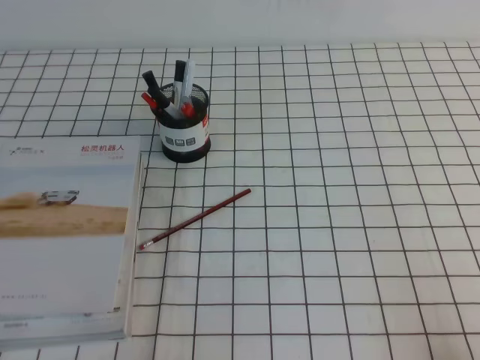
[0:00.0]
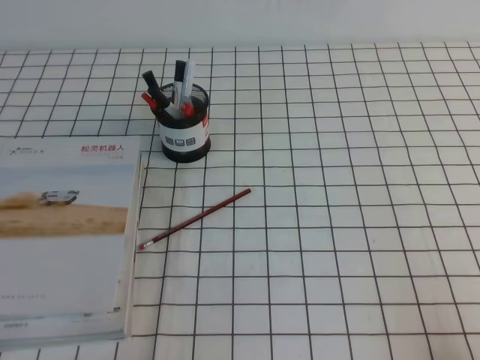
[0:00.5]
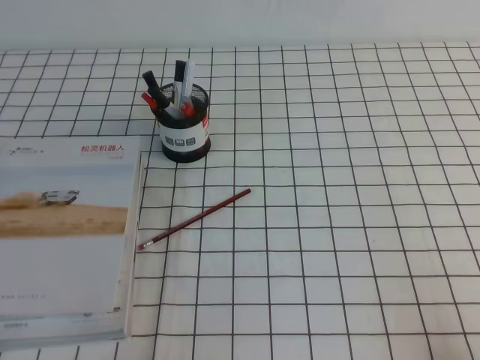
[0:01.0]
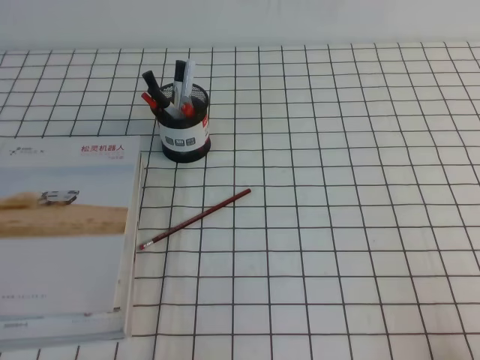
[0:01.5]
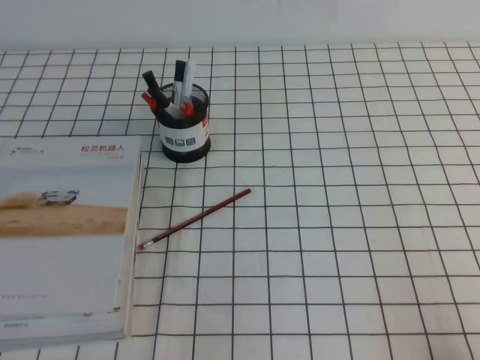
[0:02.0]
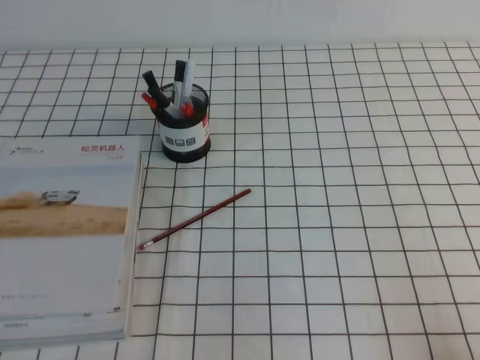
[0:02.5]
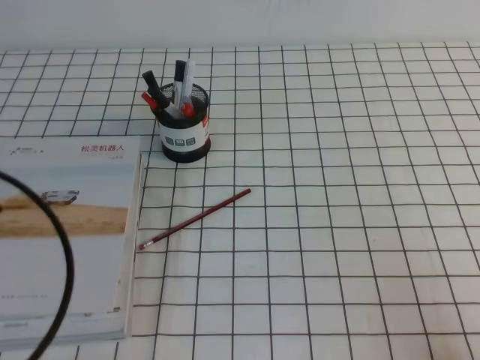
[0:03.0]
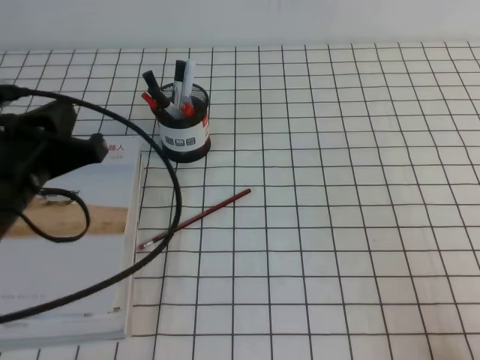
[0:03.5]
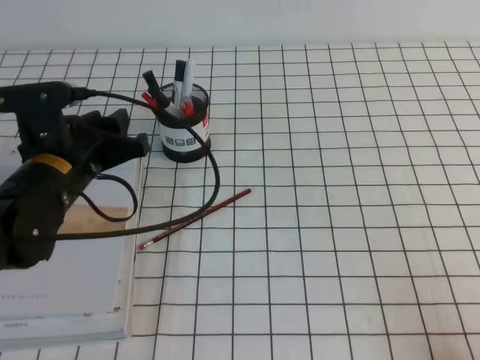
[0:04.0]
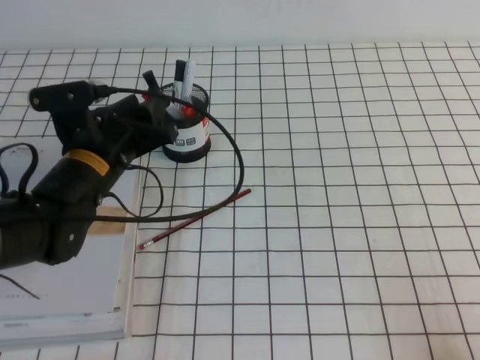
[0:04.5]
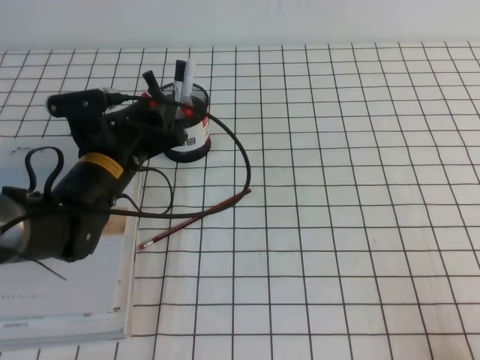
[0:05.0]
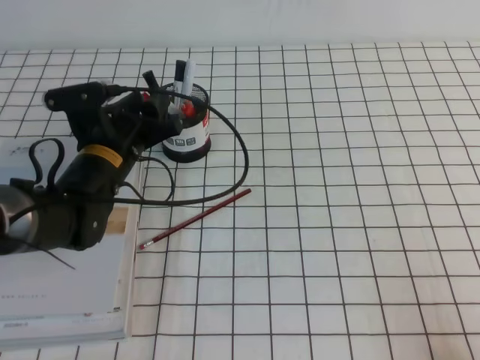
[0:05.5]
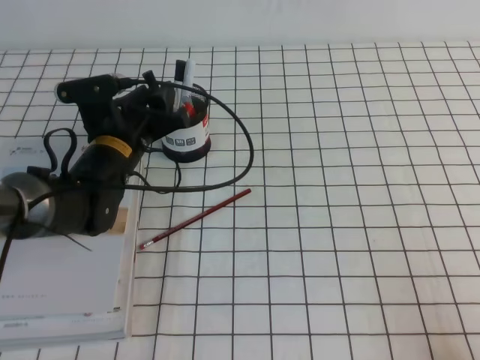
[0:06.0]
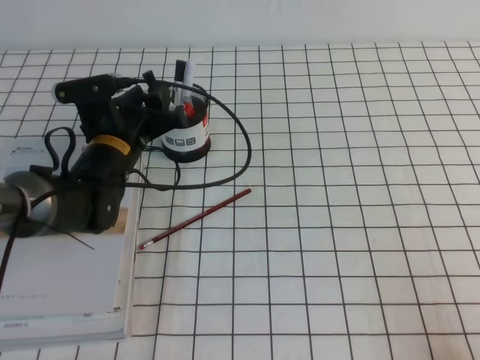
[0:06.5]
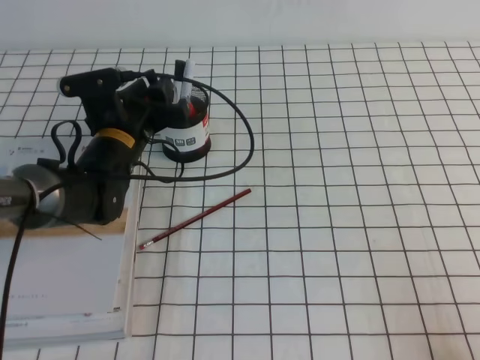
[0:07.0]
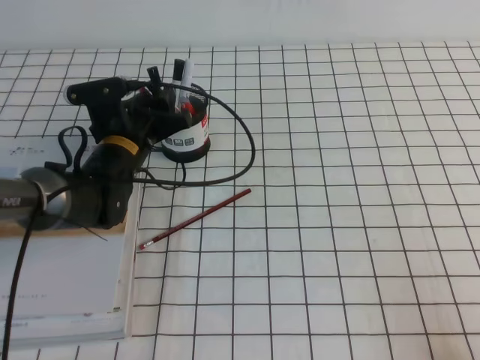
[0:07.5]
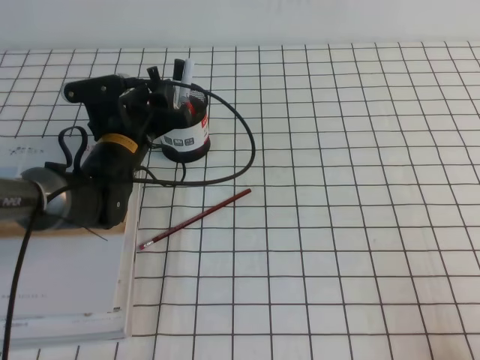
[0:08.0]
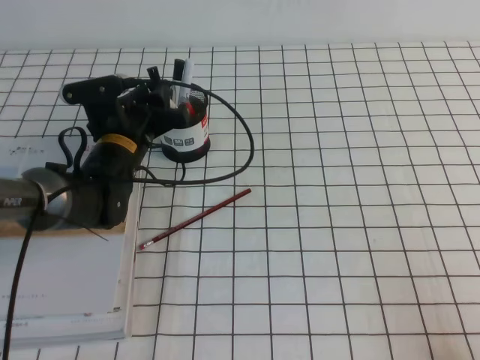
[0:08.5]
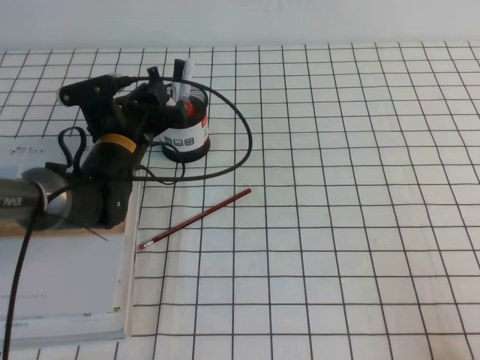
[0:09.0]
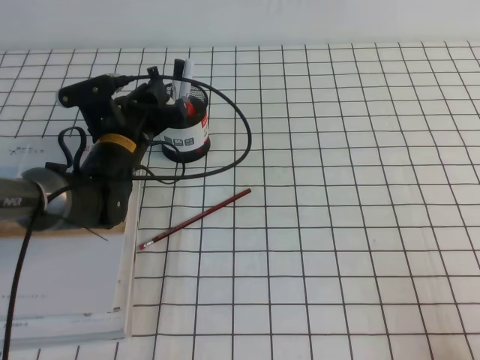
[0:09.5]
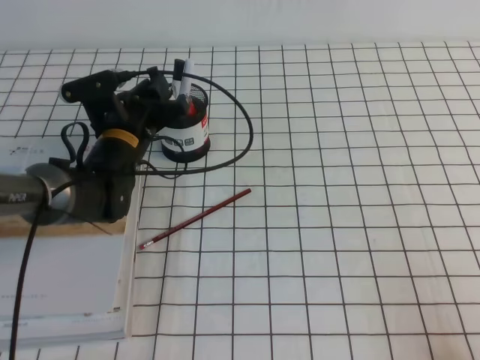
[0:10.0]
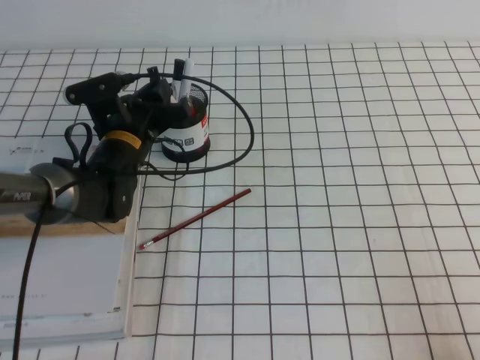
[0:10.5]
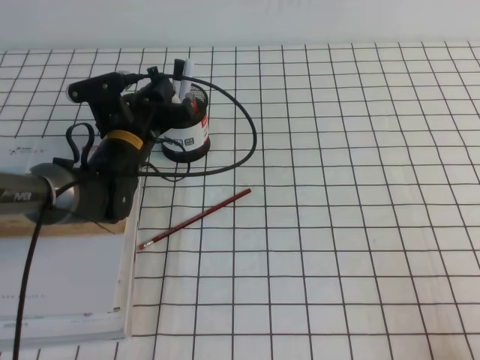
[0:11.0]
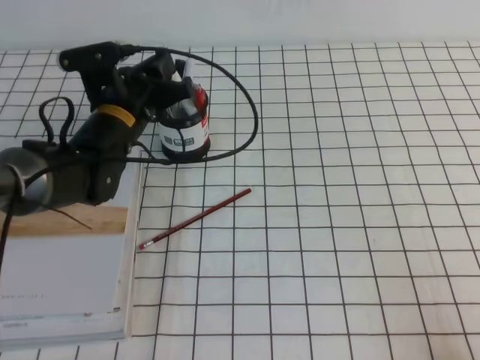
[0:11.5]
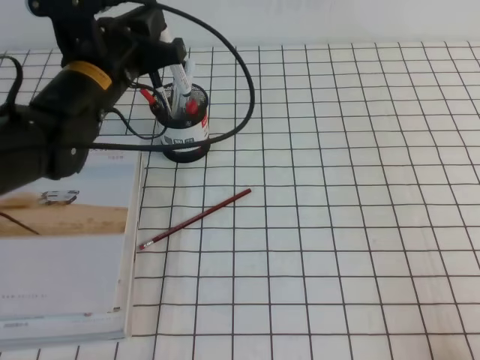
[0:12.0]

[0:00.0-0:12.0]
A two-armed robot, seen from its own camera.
0:02.0 to 0:04.0: The left gripper heads forward, covering approximately 25 cm, and opens up.
0:04.0 to 0:06.0: The left gripper goes some 10 cm forward and downward.
0:06.0 to 0:08.0: The grippers stay close to where they were, moving slightly.
0:08.0 to 0:10.0: The left gripper closes its fingers.
0:10.0 to 0:12.0: The left gripper is displaced upward by some 10 cm.

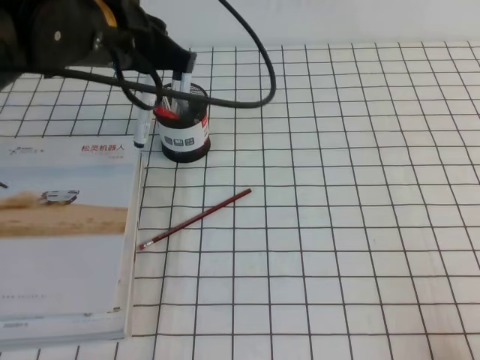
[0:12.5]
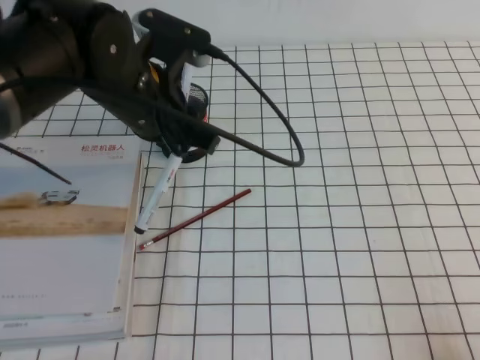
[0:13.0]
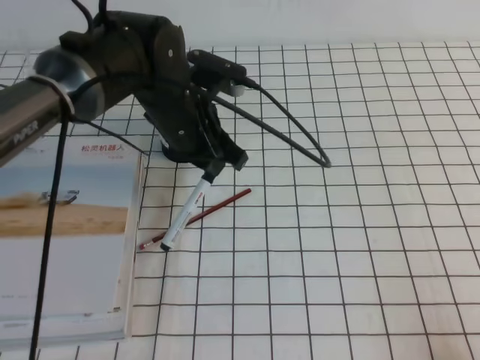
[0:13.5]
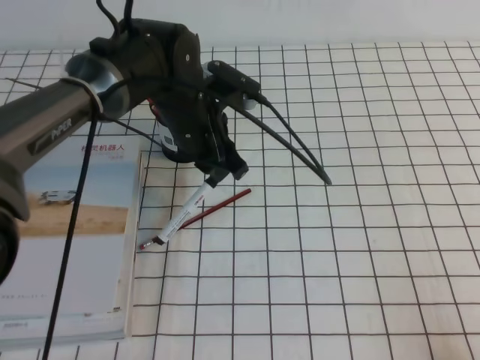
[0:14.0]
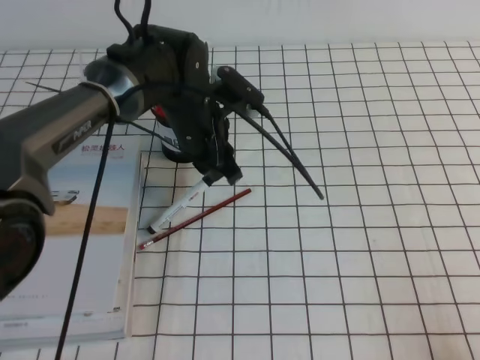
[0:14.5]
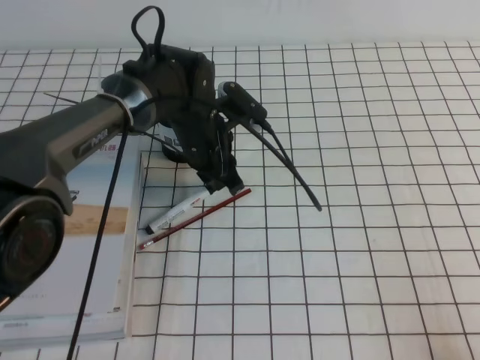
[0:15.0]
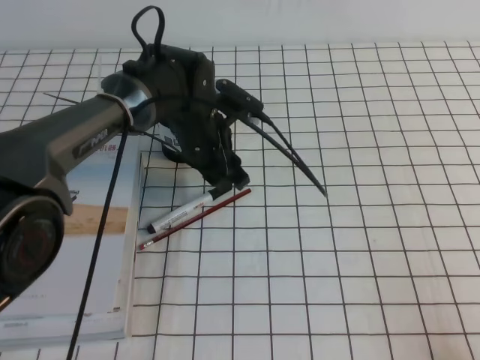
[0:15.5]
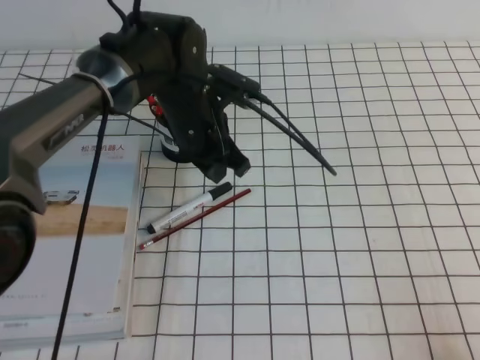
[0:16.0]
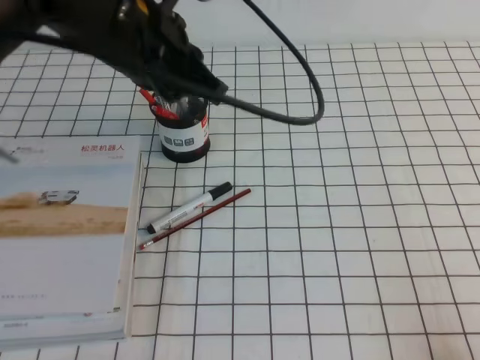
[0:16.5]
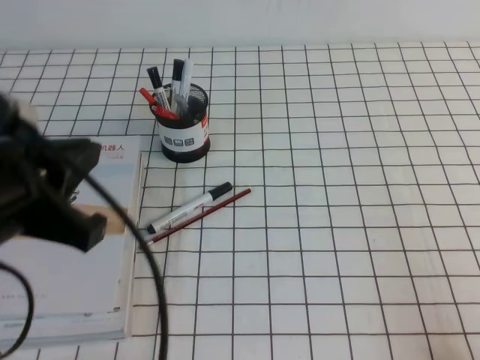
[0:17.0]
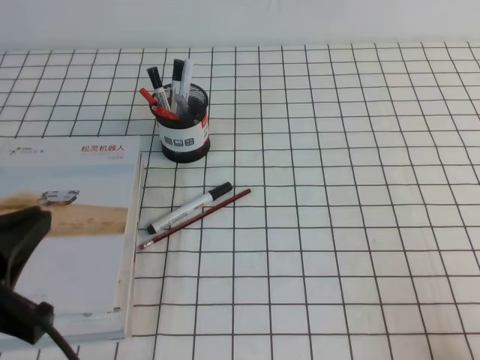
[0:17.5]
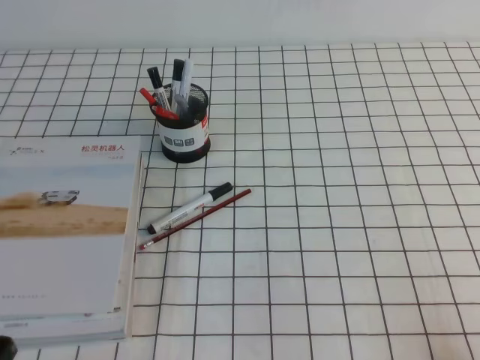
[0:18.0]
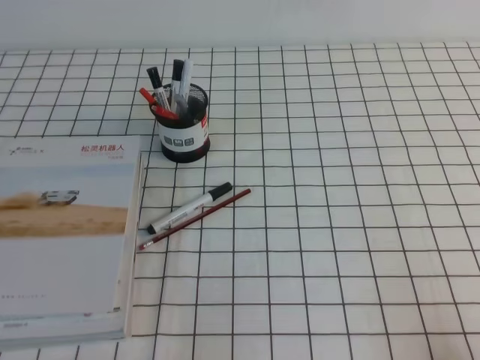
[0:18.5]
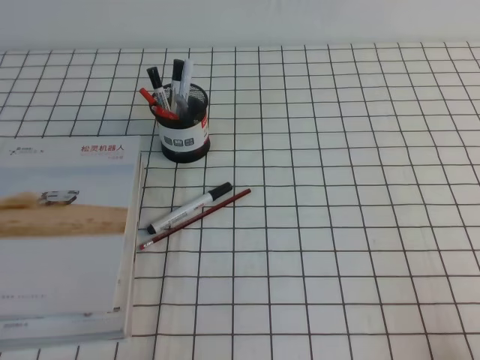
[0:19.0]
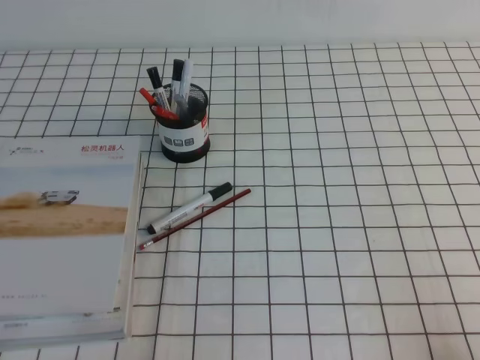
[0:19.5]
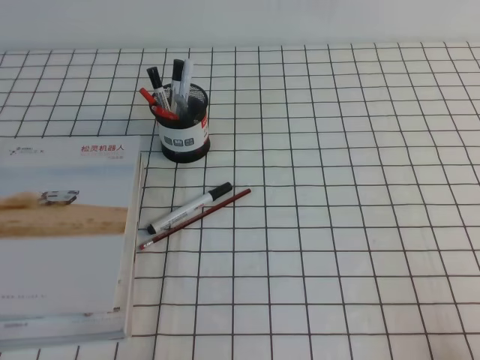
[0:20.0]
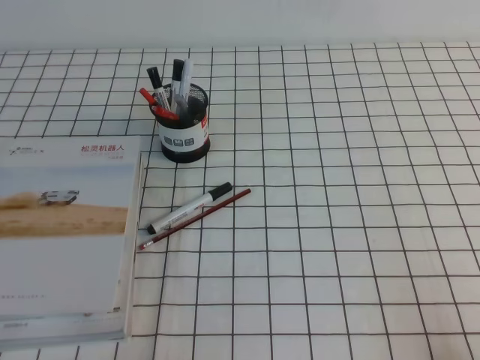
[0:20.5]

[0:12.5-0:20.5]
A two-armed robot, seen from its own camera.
Step, 0:12.5 to 0:20.5: Pick up the pen from the pen holder.
0:12.5 to 0:14.5: The left gripper moves downward, to the right and forward, roughly 15 cm.
0:14.5 to 0:16.5: The left gripper shifts some 15 cm upward and backward, and opens, then closes again.
0:16.5 to 0:18.5: The left gripper moves backward, to the left and downward, about 35 cm.

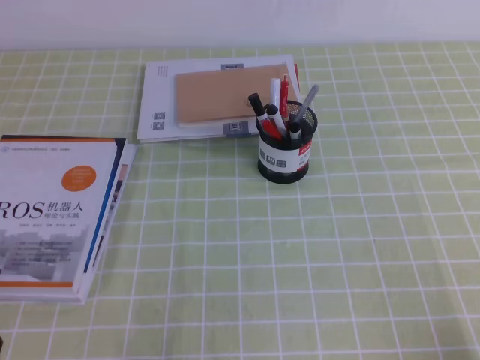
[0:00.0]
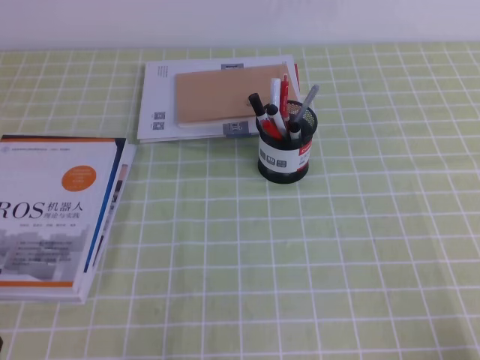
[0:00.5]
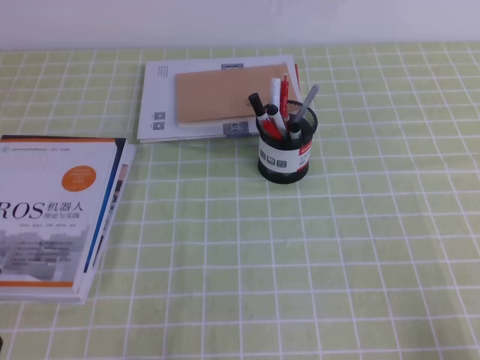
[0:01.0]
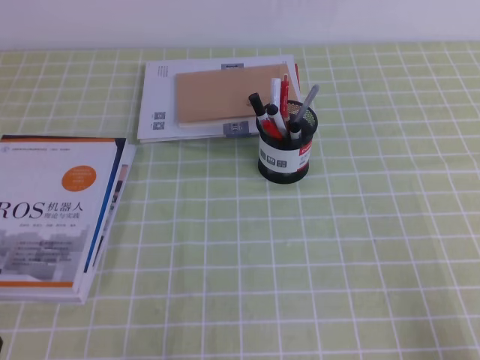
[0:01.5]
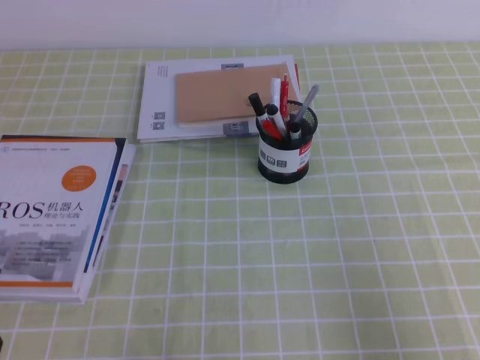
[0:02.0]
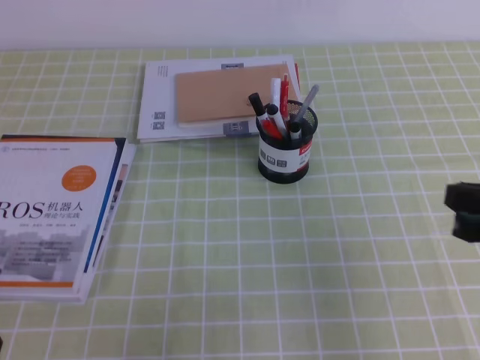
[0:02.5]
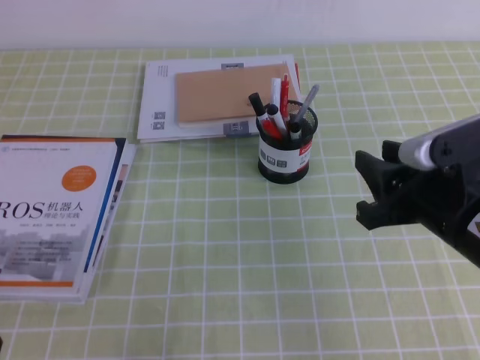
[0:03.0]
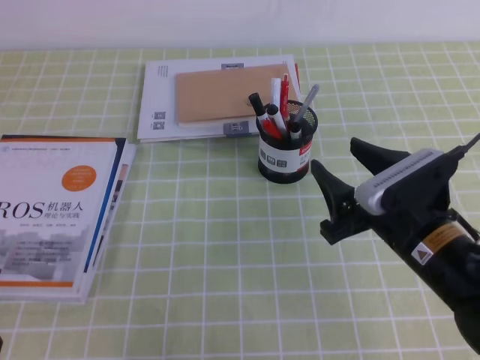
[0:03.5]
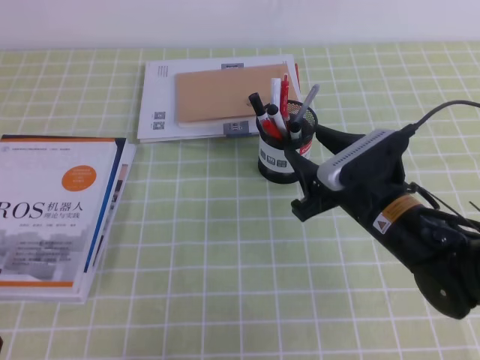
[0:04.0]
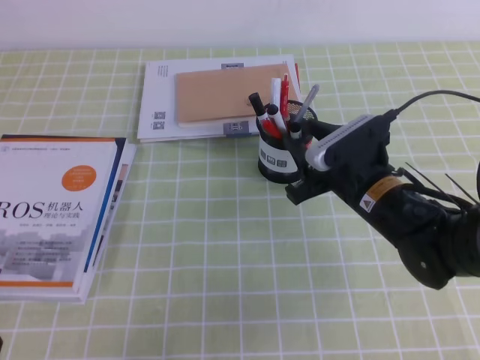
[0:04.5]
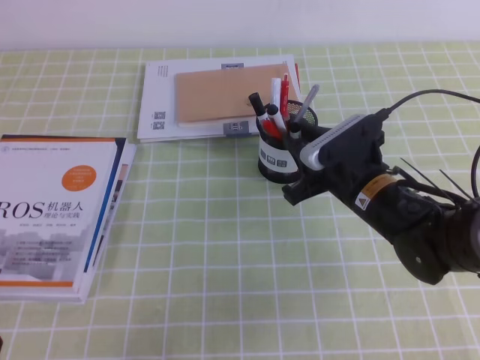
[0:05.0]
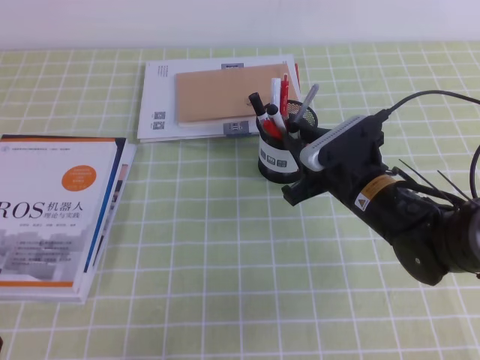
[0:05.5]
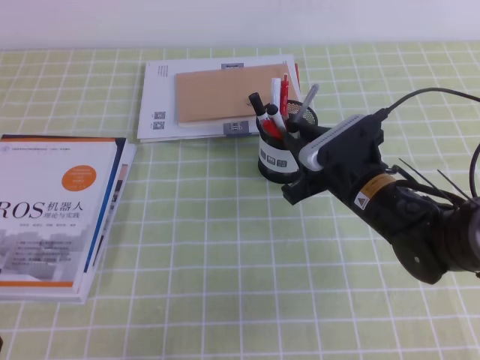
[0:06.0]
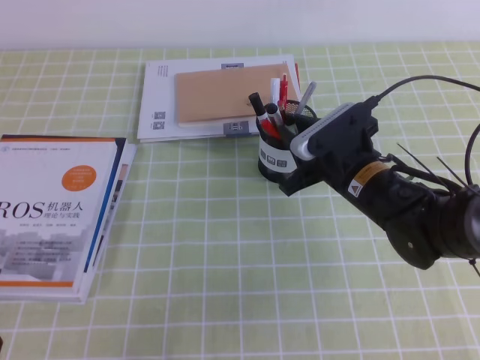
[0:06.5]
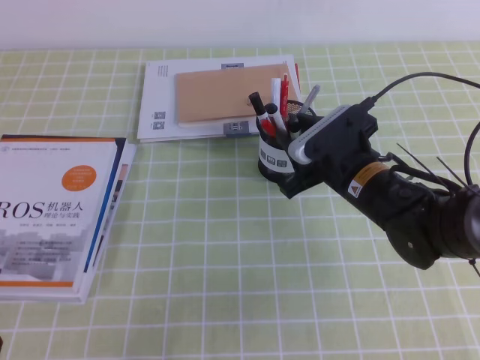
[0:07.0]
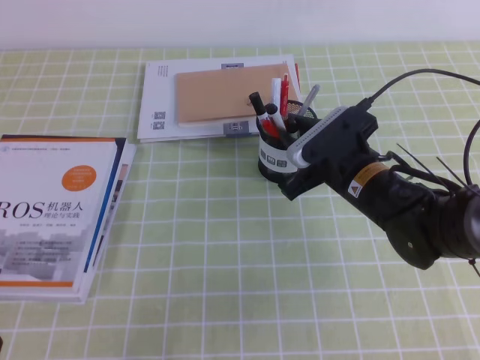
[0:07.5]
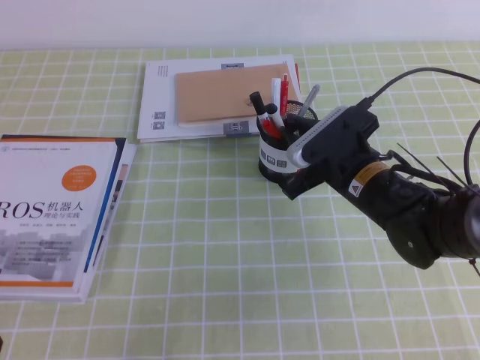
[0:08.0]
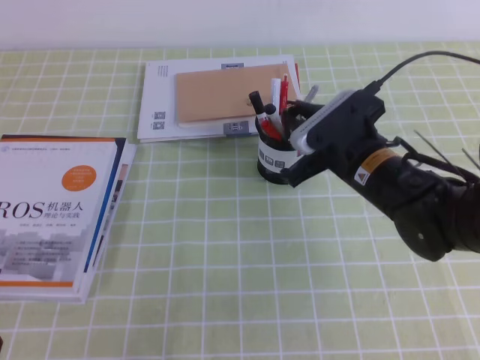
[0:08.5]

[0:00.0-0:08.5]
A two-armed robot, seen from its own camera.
0:00.0 to 0:02.0: The right gripper goes roughly 10 cm upward.
0:02.0 to 0:04.0: The right gripper travels forward and to the left by some 25 cm, and opens.
0:04.0 to 0:06.5: The right gripper is displaced forward by roughly 5 cm, and closes its fingers.
0:06.5 to 0:08.5: The grippers move only a little.
